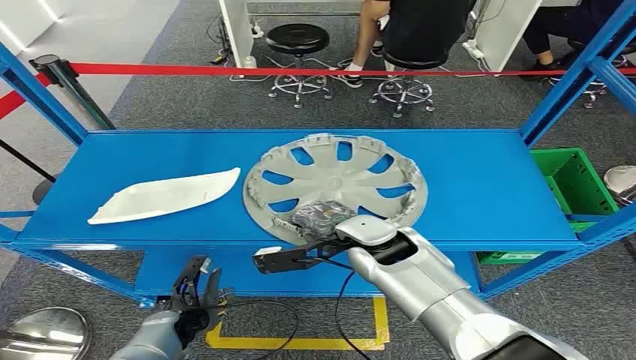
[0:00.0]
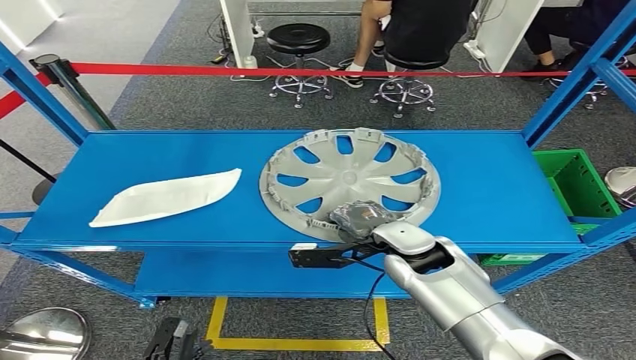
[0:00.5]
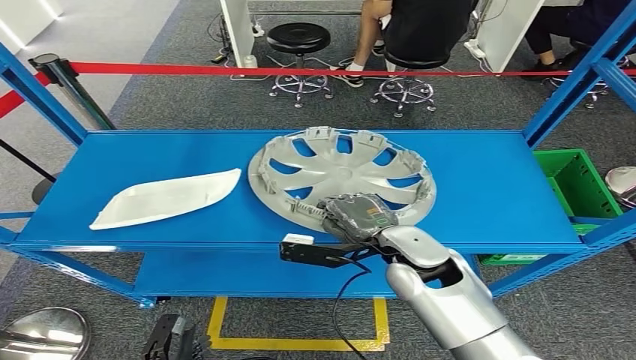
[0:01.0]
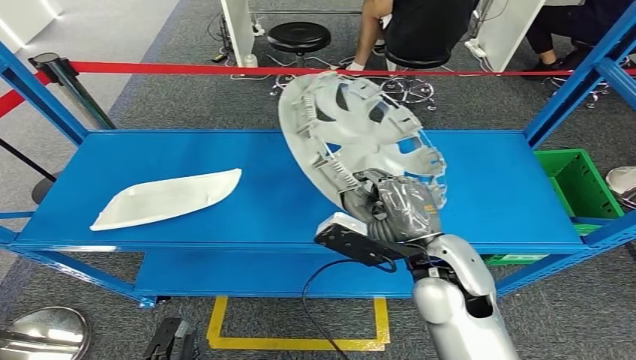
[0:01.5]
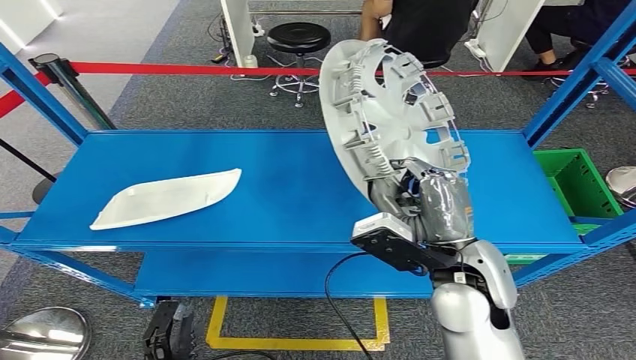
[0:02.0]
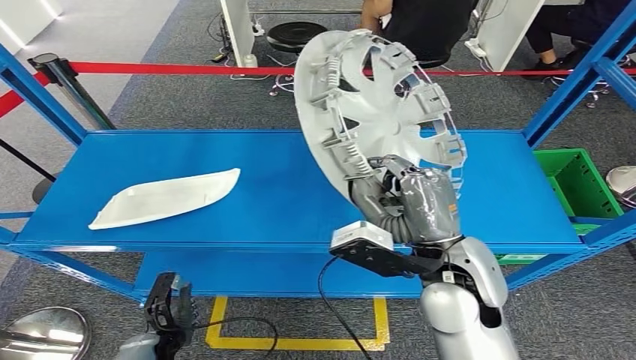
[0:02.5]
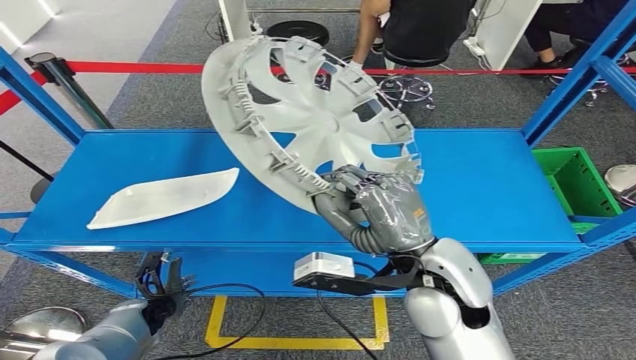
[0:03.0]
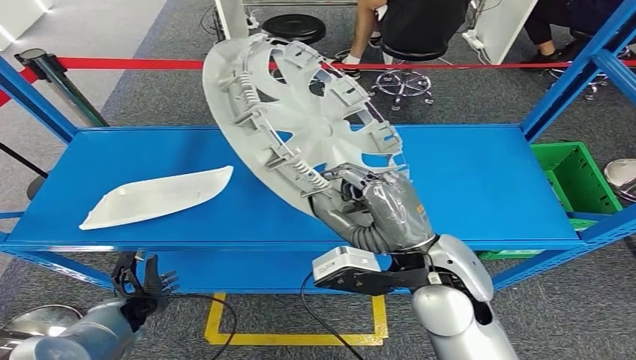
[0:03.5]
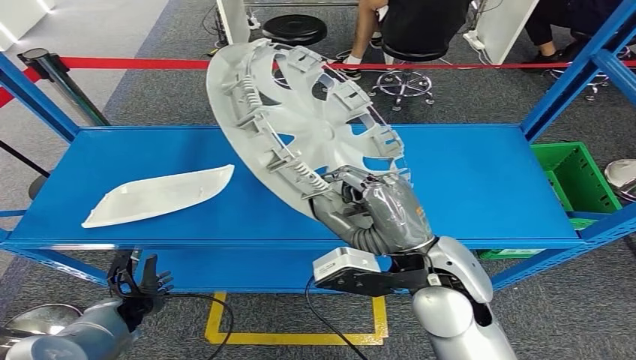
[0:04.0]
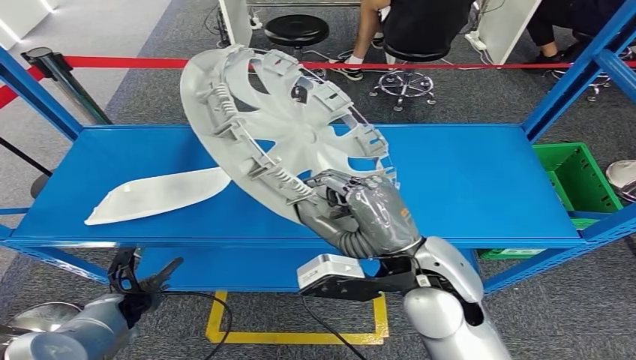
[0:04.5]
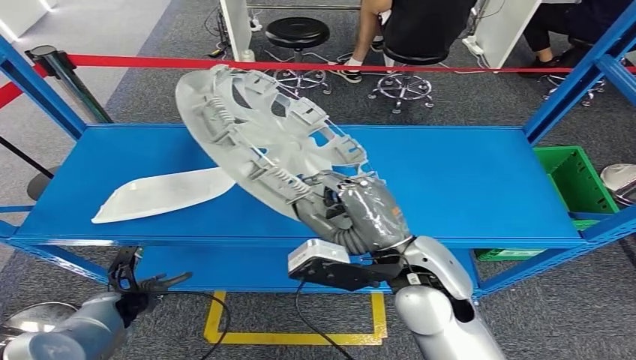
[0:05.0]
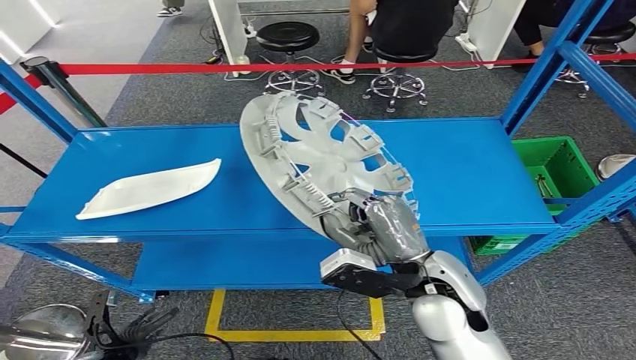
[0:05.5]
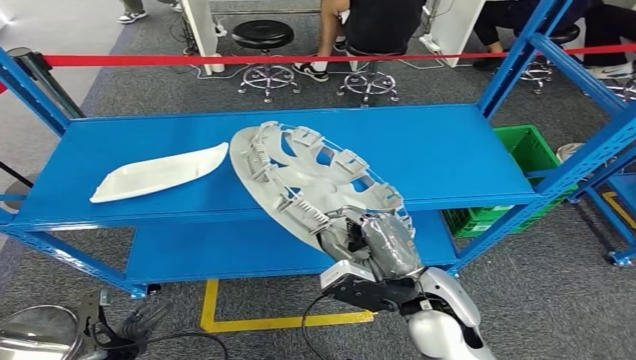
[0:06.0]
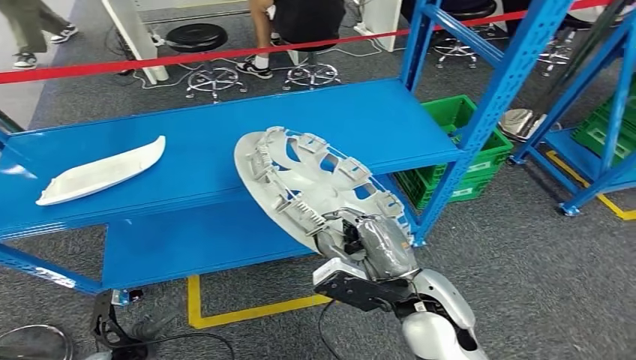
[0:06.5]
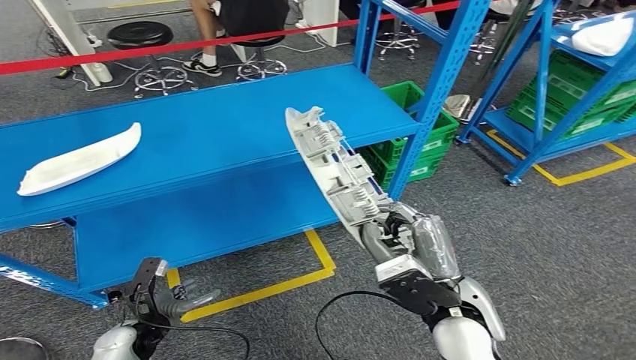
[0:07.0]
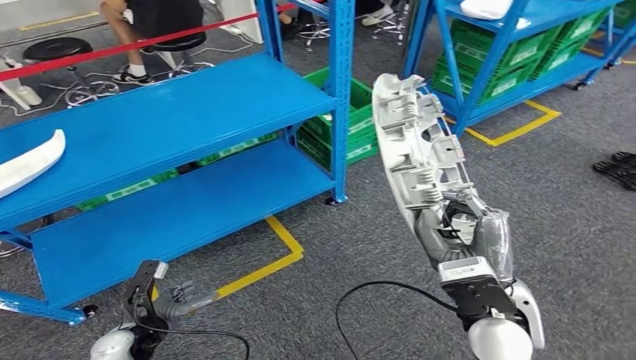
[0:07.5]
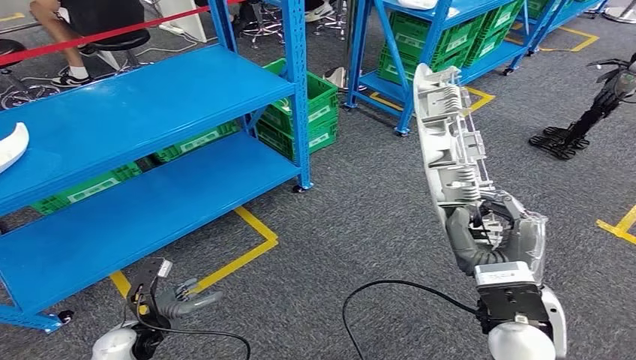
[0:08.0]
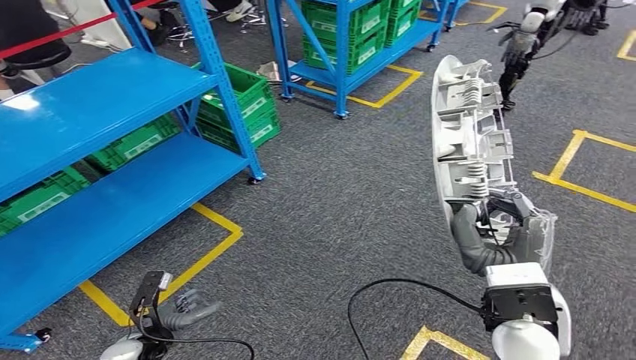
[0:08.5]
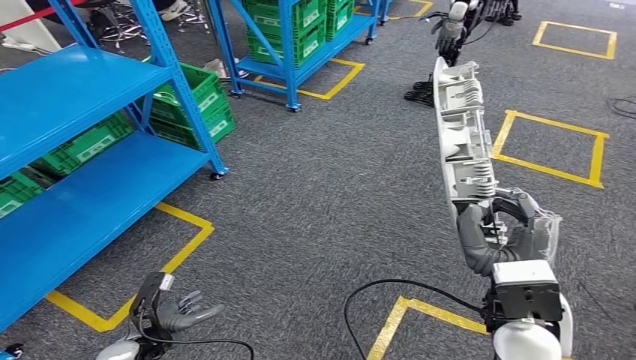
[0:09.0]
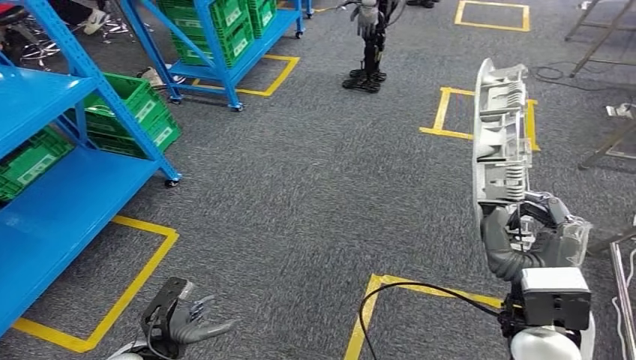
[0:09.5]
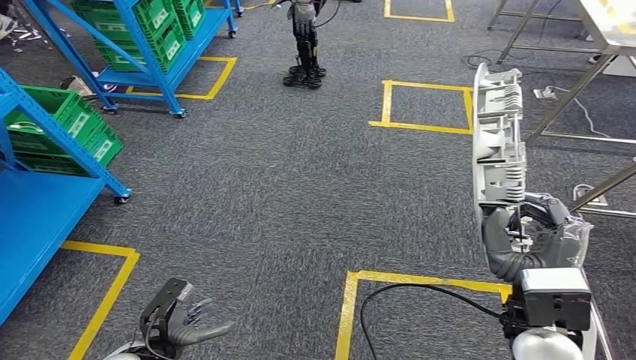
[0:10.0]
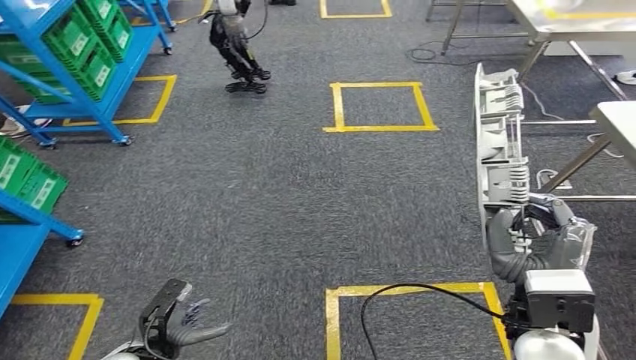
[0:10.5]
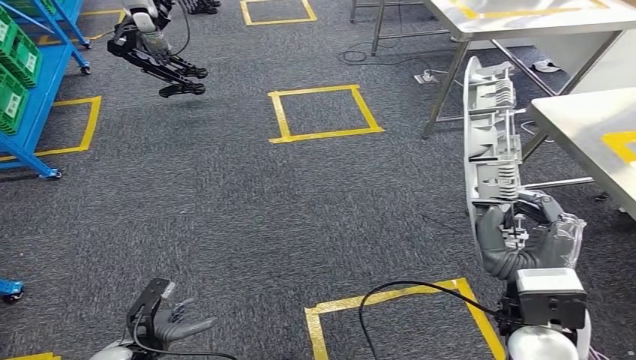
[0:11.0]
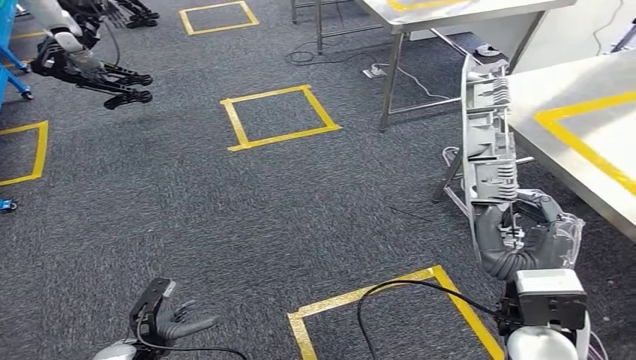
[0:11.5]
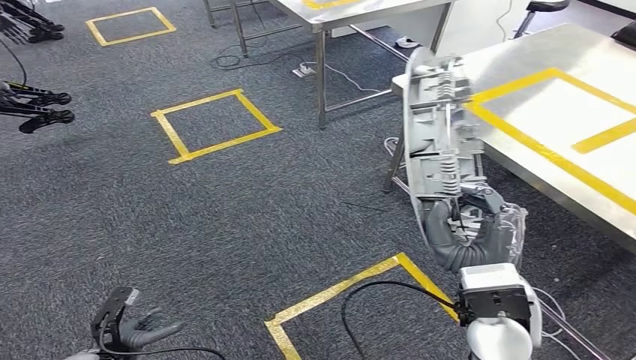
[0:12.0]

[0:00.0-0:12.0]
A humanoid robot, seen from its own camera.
Step, 0:00.0 to 0:04.5: Pick up the small component from the shelf.

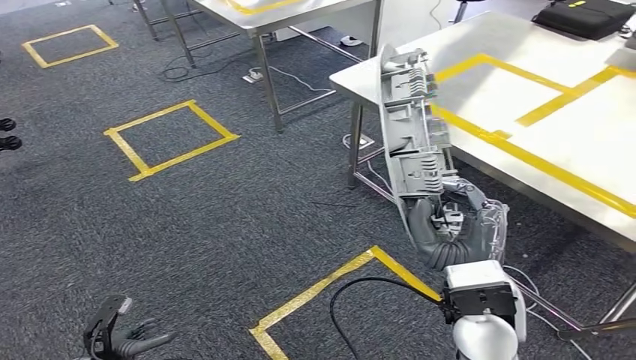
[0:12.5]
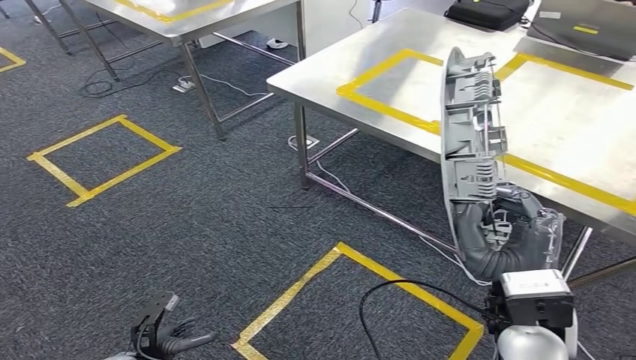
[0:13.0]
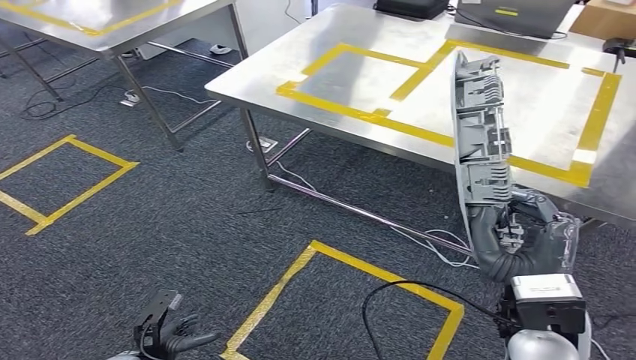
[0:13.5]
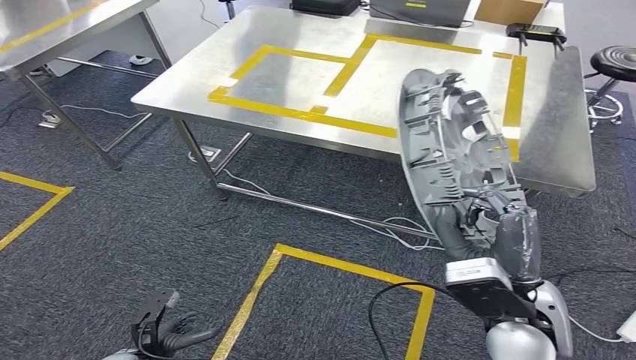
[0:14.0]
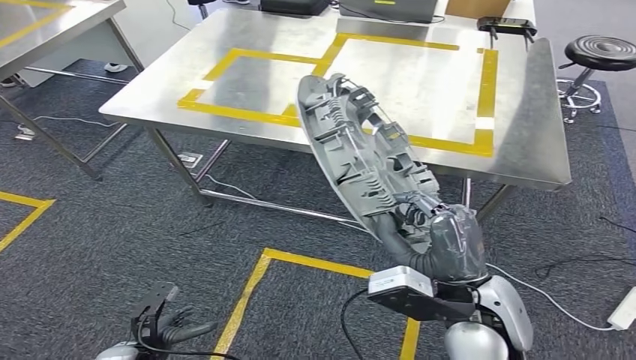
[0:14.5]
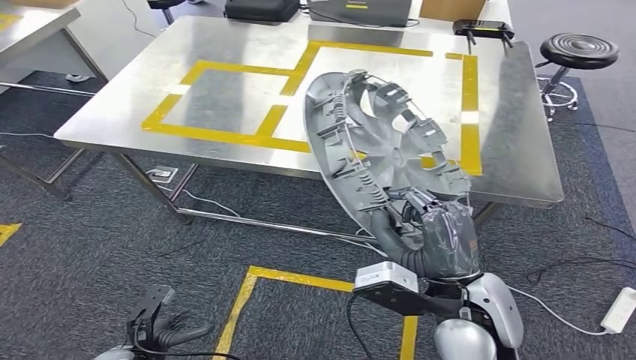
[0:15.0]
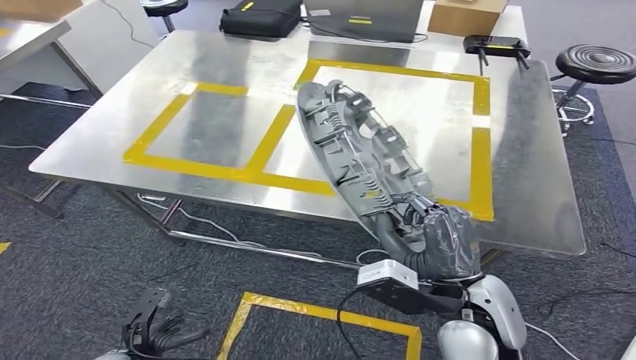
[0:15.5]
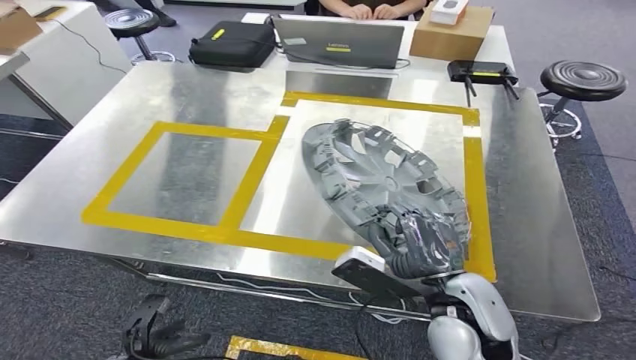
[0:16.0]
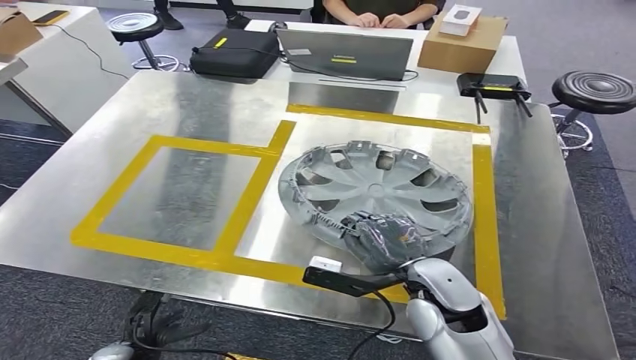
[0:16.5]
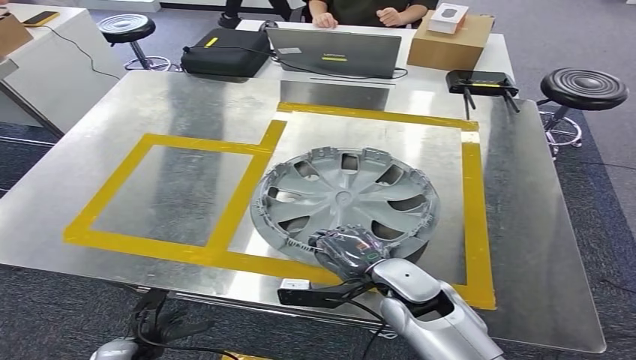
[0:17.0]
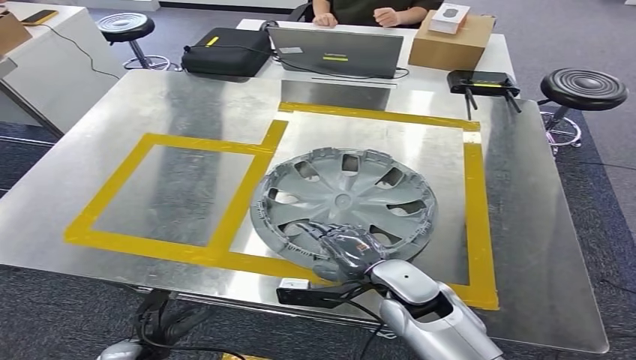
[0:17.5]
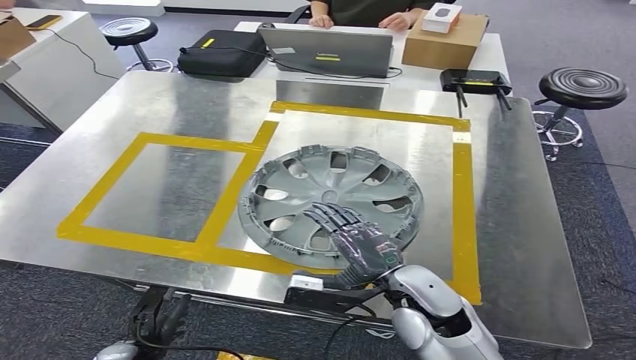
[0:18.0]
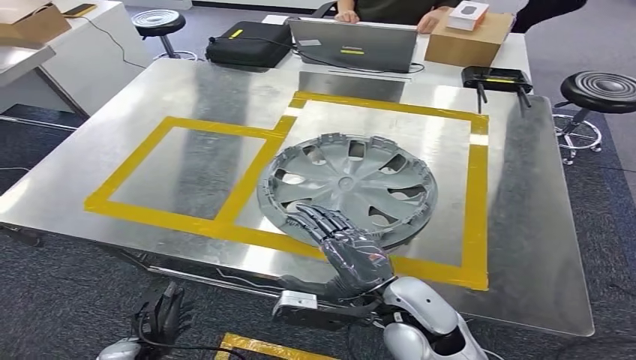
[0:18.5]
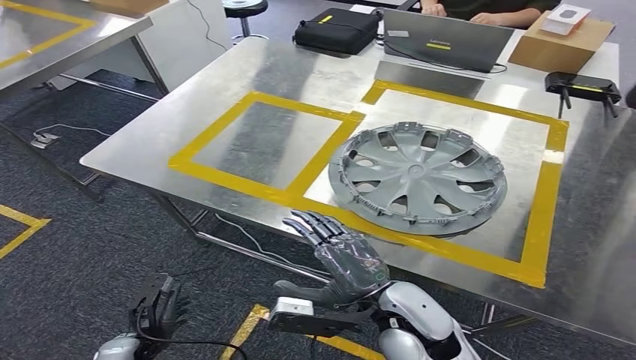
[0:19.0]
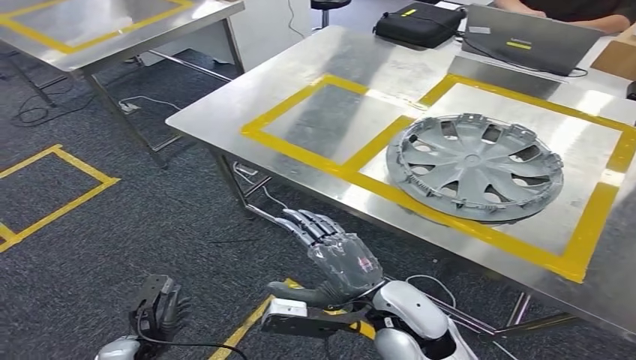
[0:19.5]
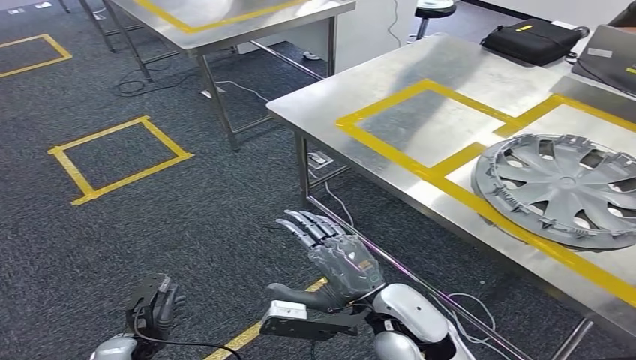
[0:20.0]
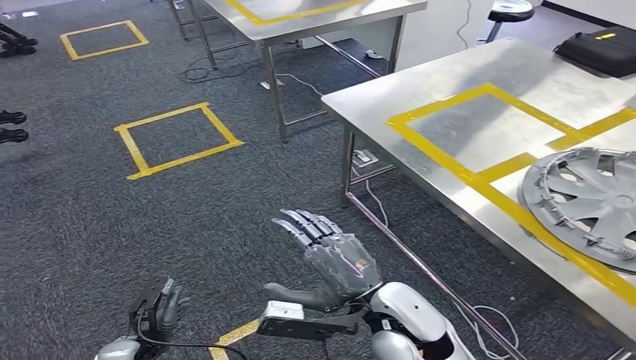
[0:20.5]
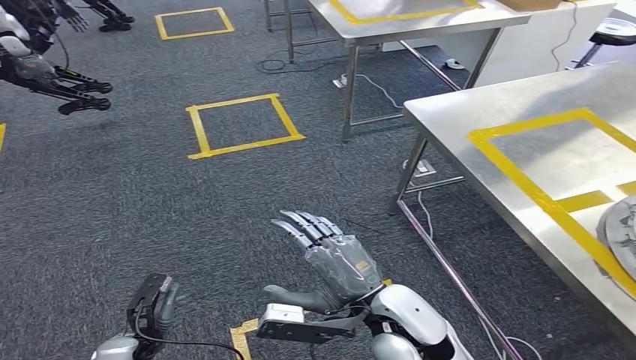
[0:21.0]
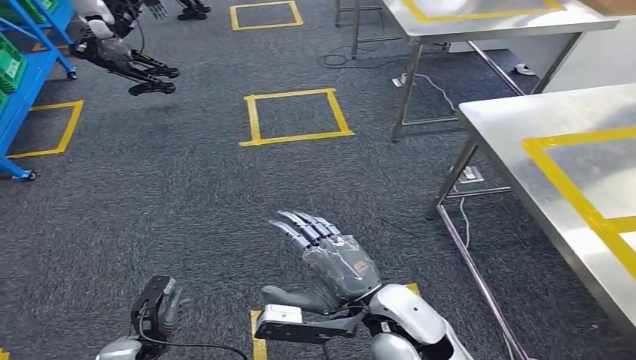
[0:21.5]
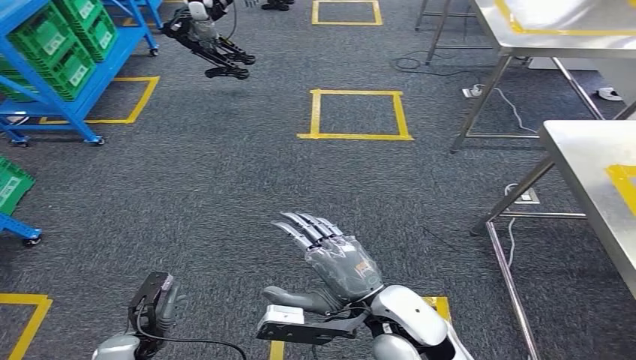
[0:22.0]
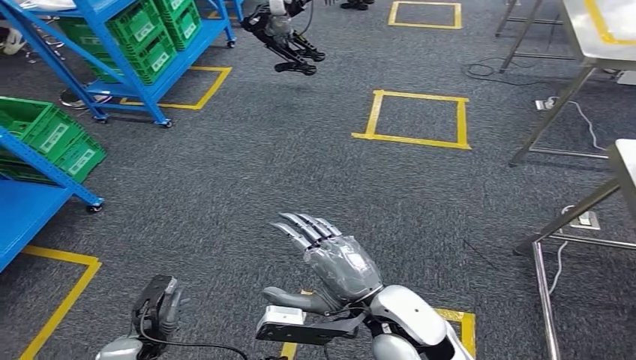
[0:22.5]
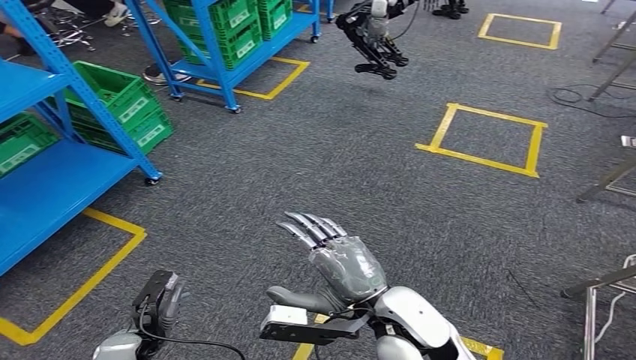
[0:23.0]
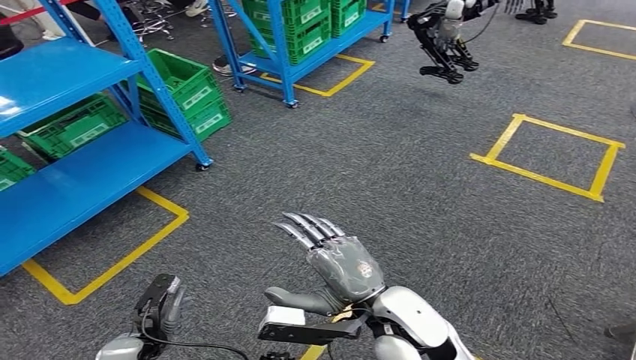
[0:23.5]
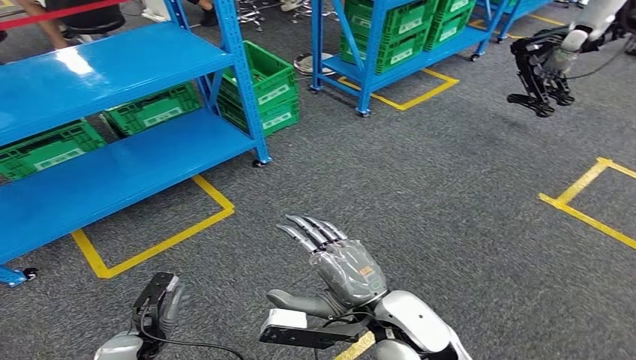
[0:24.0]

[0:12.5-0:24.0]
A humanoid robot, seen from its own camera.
Step, 0:12.5 to 0:14.5: Move the small component to the workbench.
Step, 0:15.0 to 0:19.5: Insert the small component into the corresponding slot on the workbench.
